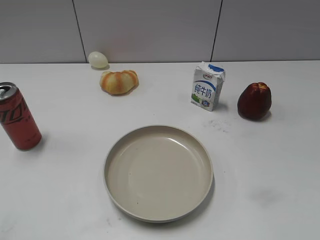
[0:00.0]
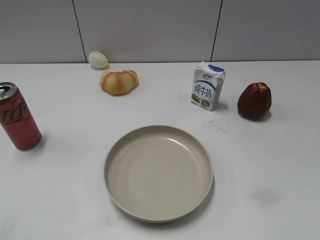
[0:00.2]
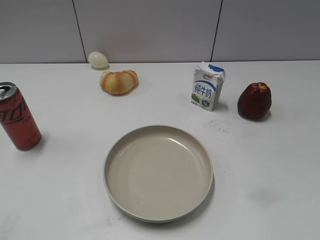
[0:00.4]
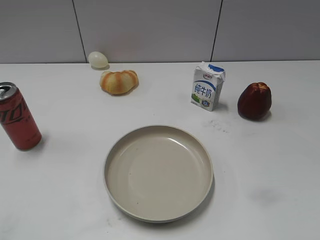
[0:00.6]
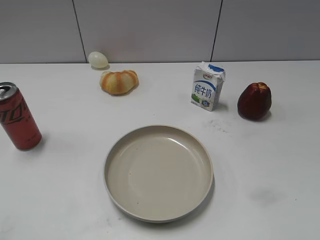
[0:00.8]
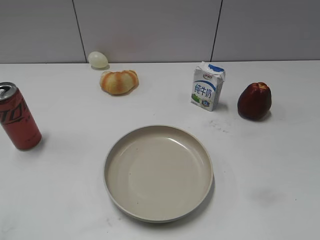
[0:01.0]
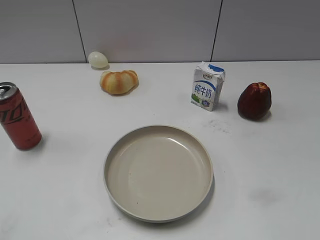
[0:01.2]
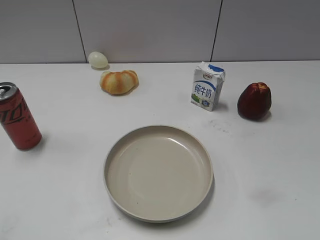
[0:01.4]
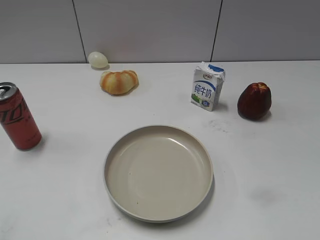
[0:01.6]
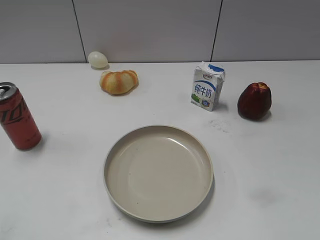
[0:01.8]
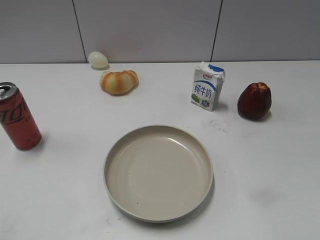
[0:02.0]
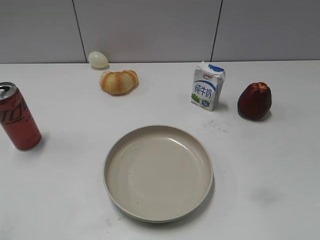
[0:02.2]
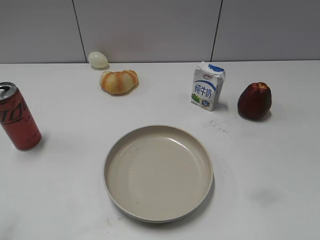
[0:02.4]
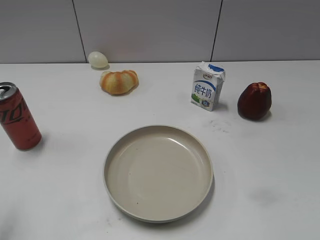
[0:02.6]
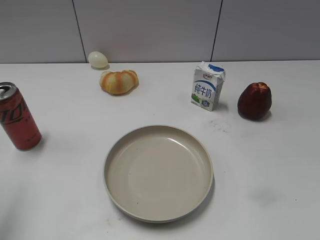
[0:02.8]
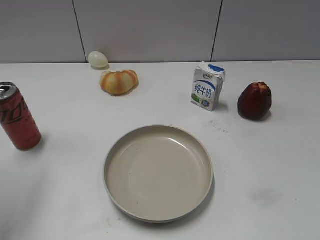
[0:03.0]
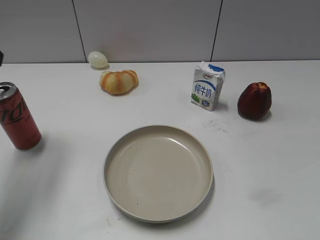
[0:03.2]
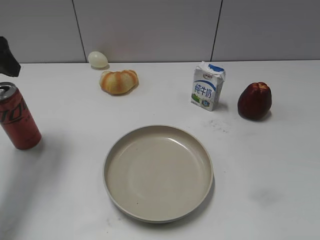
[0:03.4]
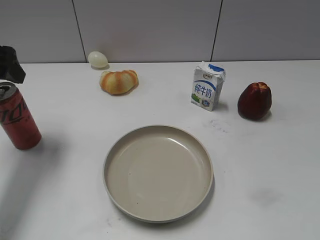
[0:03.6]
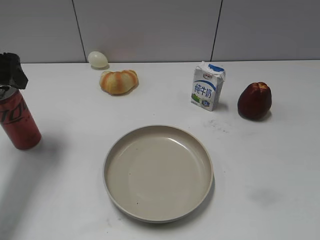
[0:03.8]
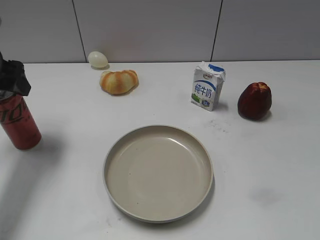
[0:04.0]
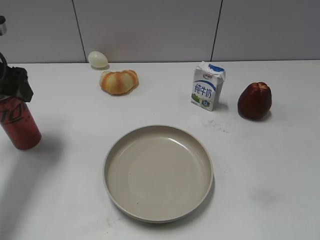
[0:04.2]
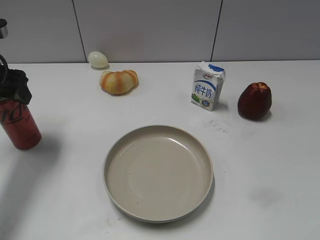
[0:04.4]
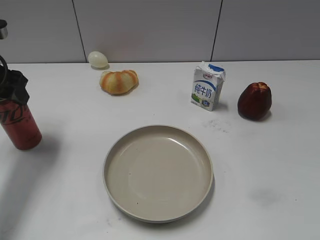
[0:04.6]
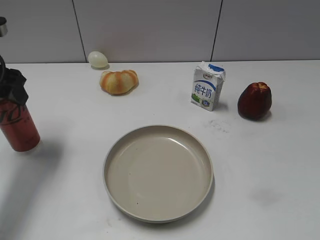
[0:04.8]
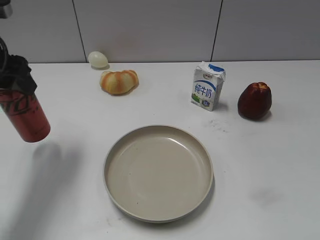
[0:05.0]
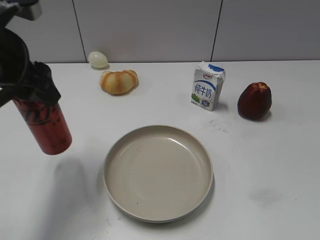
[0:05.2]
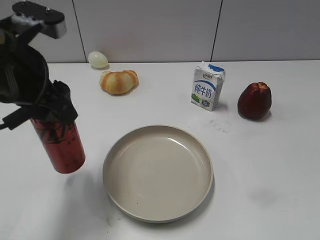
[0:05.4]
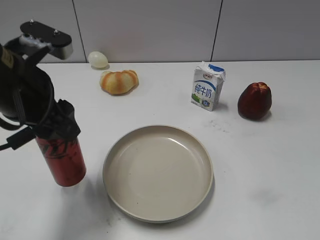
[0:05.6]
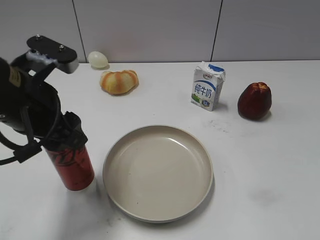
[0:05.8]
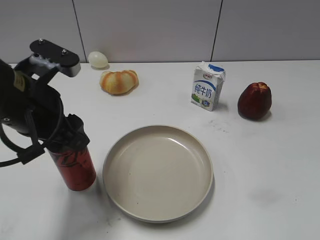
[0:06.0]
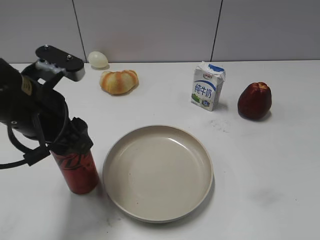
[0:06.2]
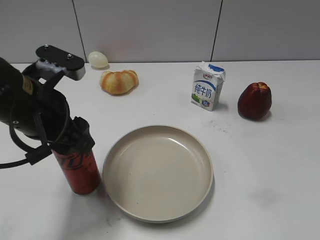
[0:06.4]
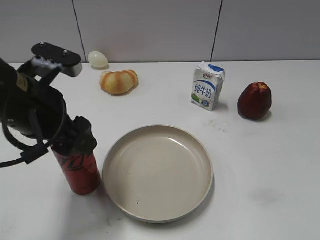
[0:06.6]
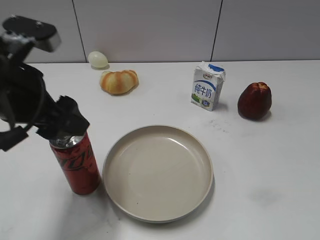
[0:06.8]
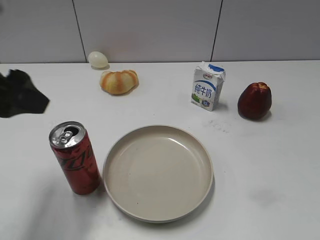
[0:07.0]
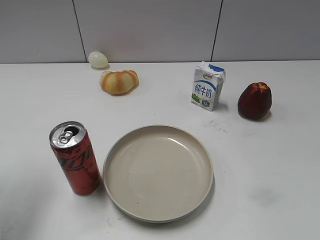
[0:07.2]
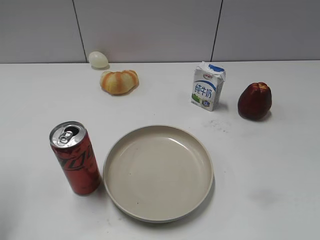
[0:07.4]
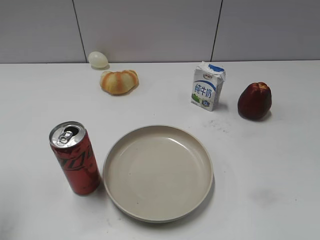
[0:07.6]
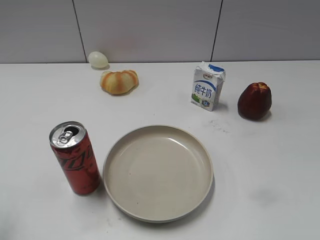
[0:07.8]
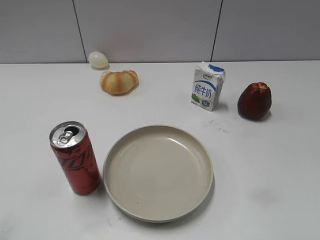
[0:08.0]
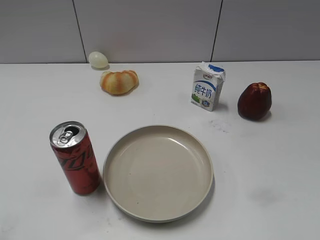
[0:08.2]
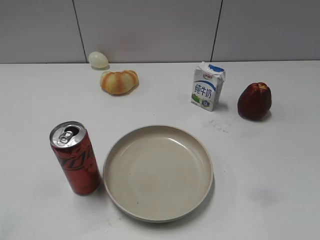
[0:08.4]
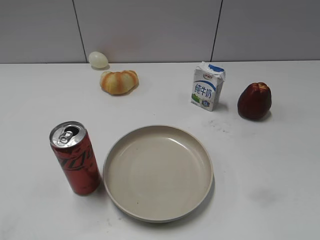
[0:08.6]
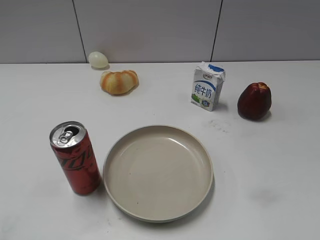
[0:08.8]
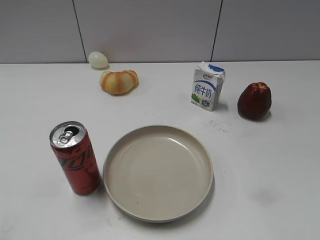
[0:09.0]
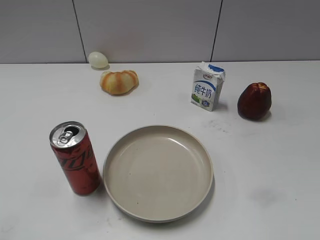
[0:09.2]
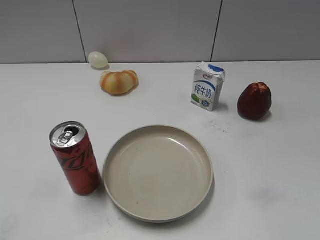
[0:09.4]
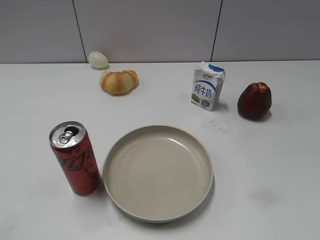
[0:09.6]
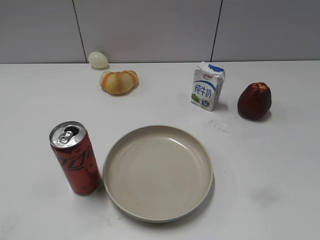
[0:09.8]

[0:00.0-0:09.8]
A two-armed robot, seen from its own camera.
Step, 0:02.0 to 0:04.2: Grasp the cola with left gripper.
Step, 0:04.6 to 0:06.8: Place the cola on the table with left gripper.
0:01.4 to 0:02.8: The left gripper is displaced forward by some 15 cm.
0:02.8 to 0:04.2: The left gripper is displaced forward and downward by approximately 20 cm, and opens up.
0:04.2 to 0:05.6: The left gripper is displaced to the right and backward by about 15 cm, and closes.
0:05.6 to 0:07.0: The left gripper shifts by approximately 5 cm, and opens.
0:07.0 to 0:08.4: The left gripper is displaced backward and to the left by about 20 cm, and closes.

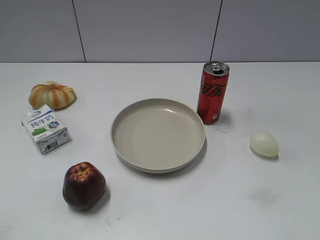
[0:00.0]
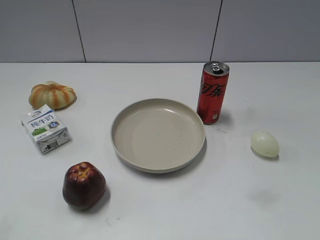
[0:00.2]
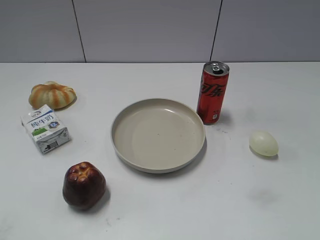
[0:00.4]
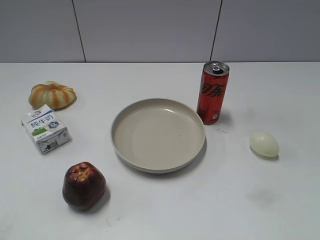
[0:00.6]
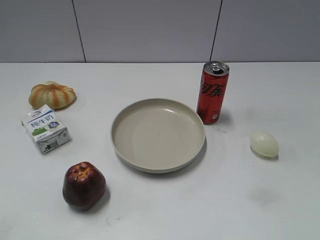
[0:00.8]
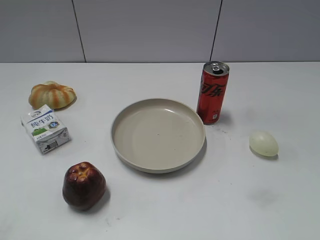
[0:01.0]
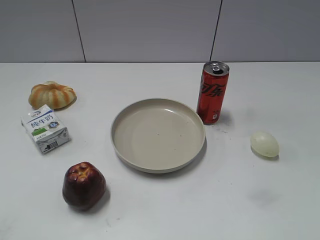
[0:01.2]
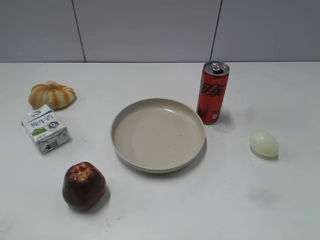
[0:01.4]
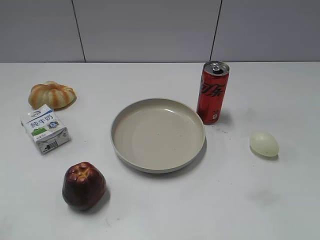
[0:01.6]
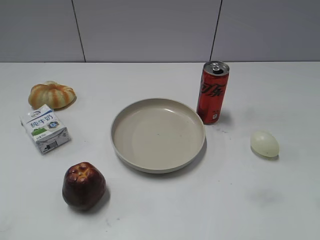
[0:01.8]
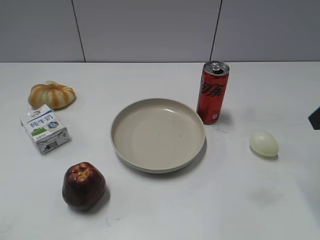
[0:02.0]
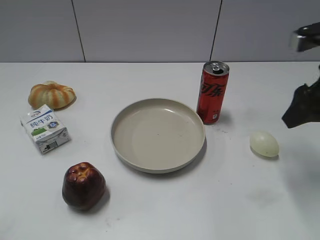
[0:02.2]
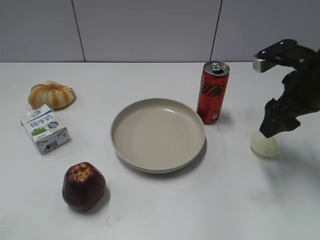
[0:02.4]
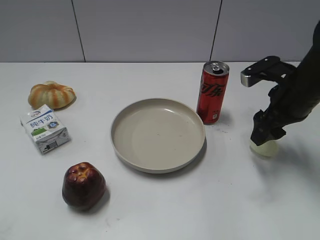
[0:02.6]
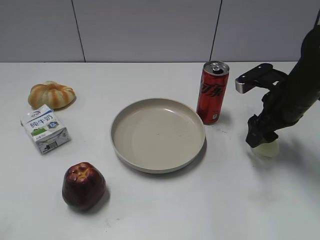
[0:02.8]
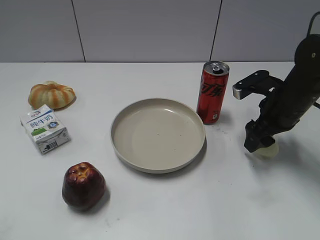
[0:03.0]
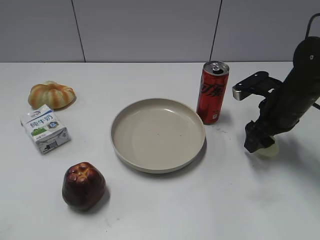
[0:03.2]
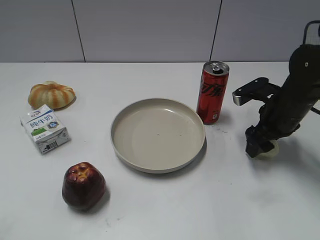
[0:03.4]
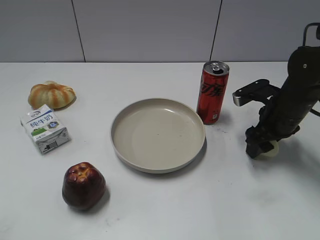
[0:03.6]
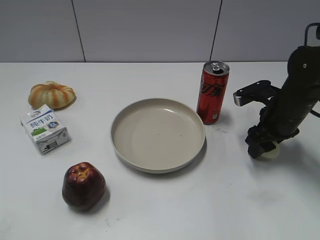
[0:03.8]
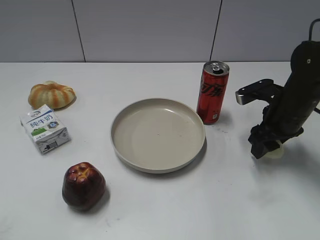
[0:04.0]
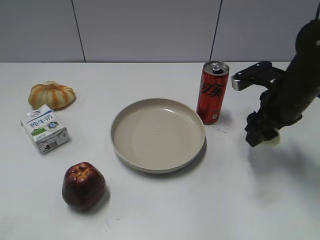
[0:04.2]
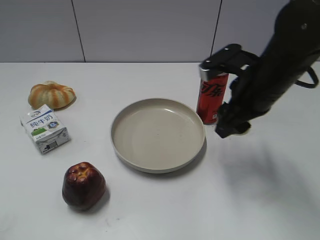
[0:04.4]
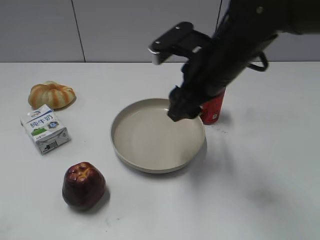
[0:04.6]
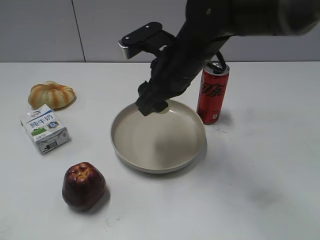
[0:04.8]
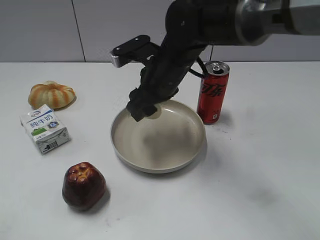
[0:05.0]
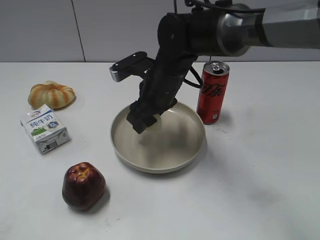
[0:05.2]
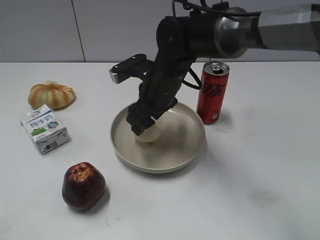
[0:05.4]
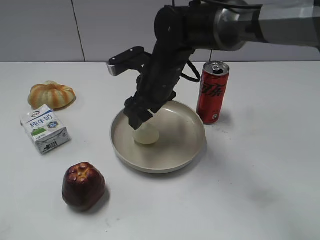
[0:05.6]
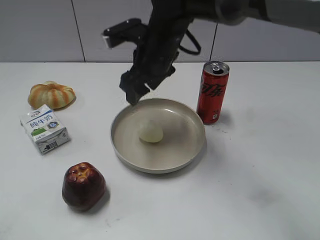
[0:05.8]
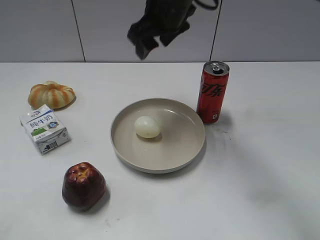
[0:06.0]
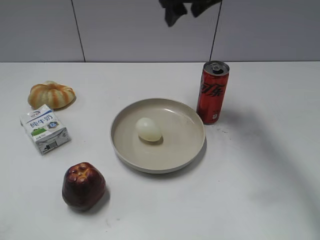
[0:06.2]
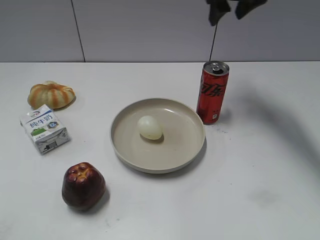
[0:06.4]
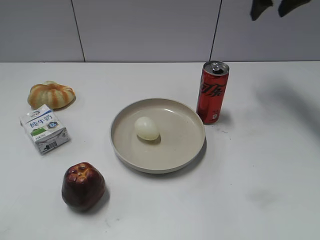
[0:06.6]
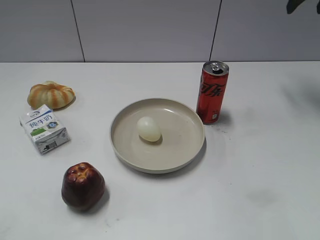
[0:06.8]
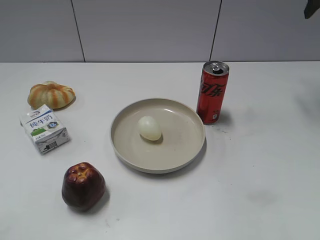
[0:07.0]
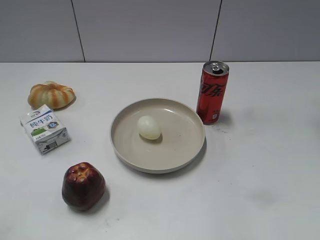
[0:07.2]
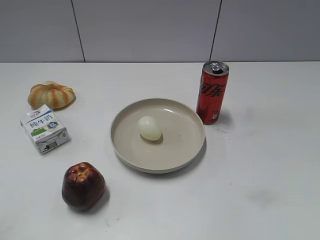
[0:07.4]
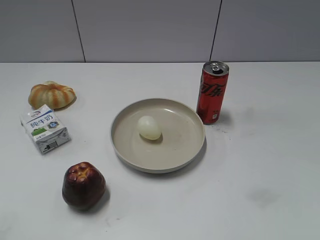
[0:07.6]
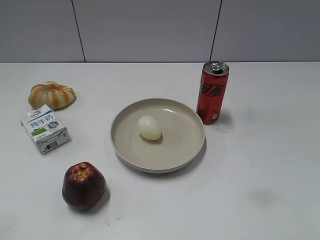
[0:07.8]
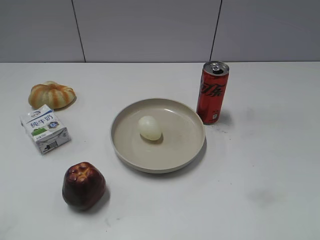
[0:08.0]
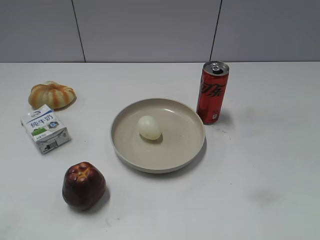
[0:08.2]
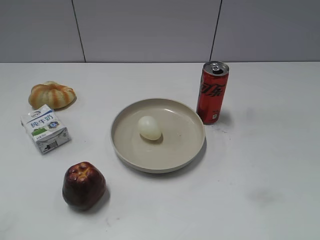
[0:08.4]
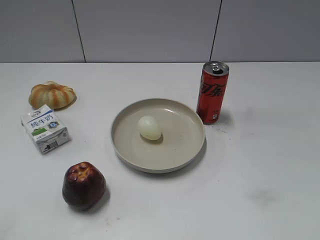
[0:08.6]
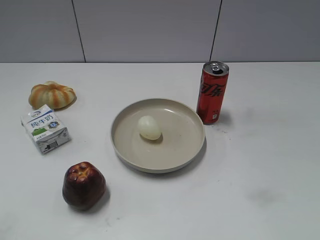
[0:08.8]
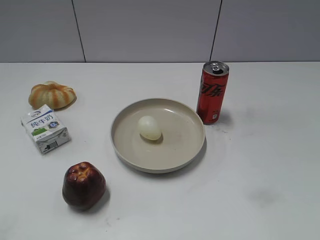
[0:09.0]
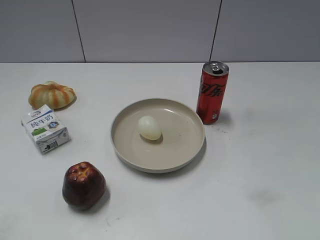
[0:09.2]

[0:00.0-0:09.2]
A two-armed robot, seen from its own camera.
Step, 0:01.0 to 0:03.6: Grasp the egg with right gripper.
Step, 0:04.0 to 0:05.6: Place the egg on the plate with right gripper.
0:01.6 to 0:03.0: The right gripper travels forward and downward by some 25 cm.
0:03.0 to 0:04.6: The right gripper moves to the left and upward, about 20 cm, and closes its fingers.
0:04.6 to 0:06.2: The right gripper moves forward and upward, roughly 15 cm, and opens its fingers.
0:06.2 to 0:07.6: The right gripper heads backward and to the right, covering approximately 35 cm.

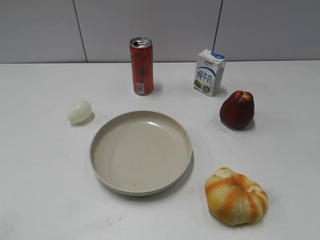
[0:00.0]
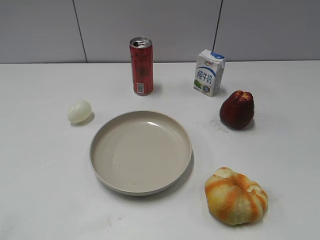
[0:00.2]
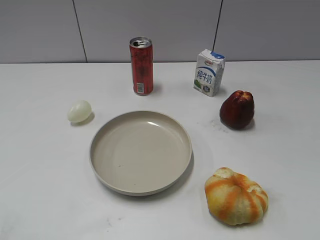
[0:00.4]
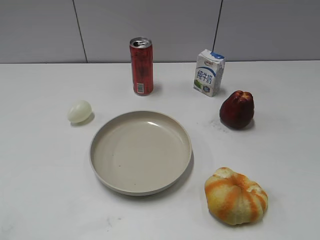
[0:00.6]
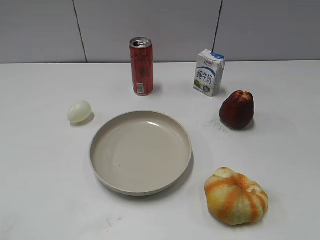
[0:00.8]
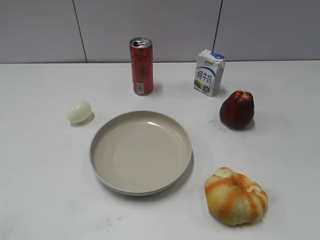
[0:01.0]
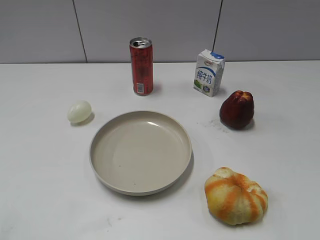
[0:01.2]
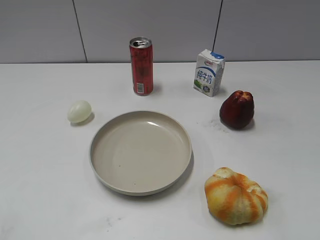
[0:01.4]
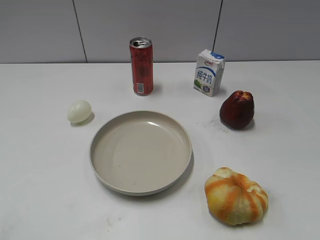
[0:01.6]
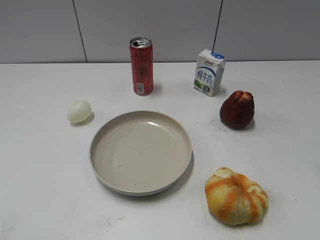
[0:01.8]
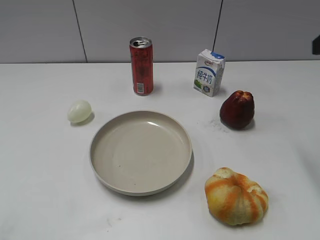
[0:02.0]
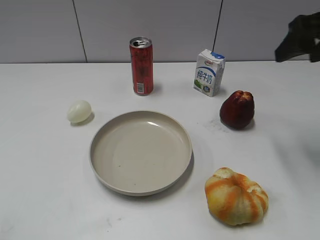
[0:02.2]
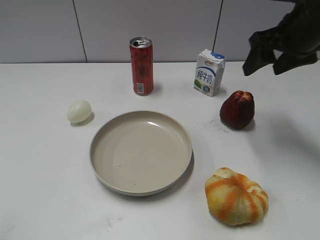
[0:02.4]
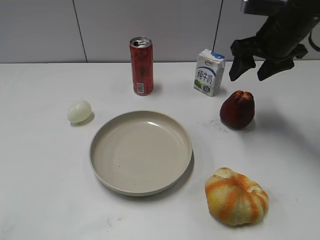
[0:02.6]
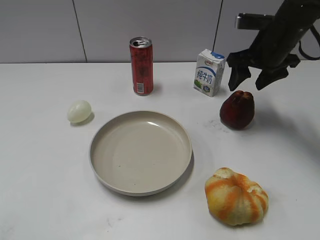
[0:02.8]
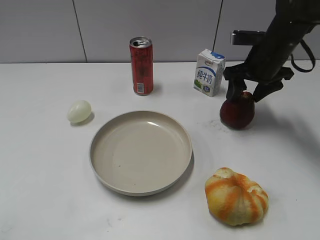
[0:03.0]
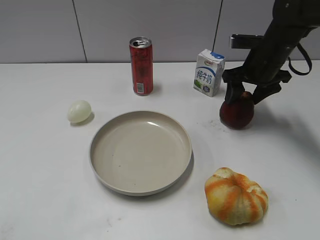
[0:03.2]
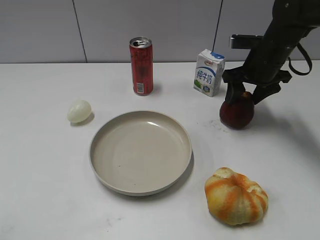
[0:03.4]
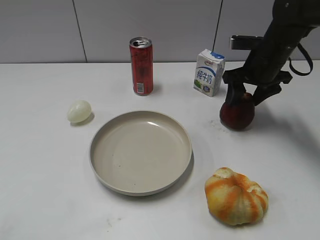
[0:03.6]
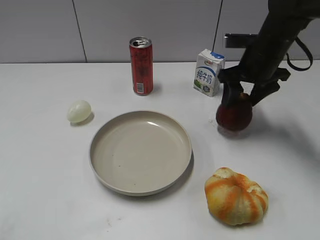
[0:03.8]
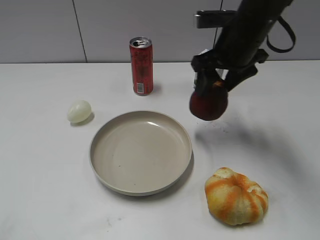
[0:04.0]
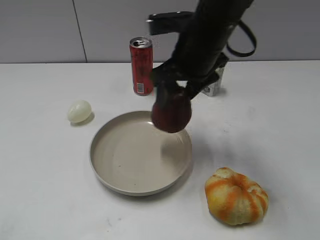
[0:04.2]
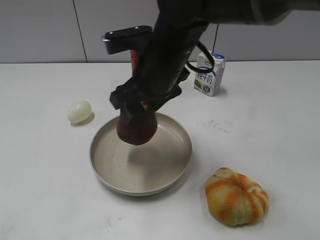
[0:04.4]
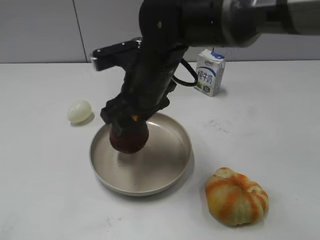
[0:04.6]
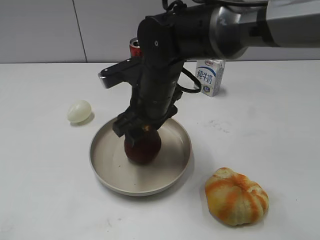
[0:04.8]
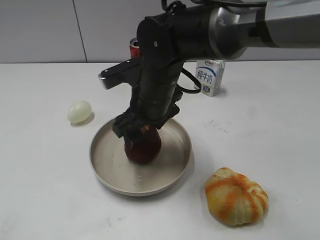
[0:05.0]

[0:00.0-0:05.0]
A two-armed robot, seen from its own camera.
Step, 0:01.0 to 0:03.4: Grasp the apple with right gripper.
0:01.6 to 0:03.4: The right gripper is displaced forward and downward by approximately 35 cm.
0:03.4 to 0:05.0: The right gripper moves to the left and backward, roughly 25 cm, and opens.
